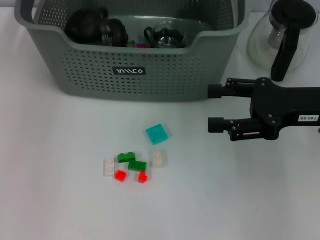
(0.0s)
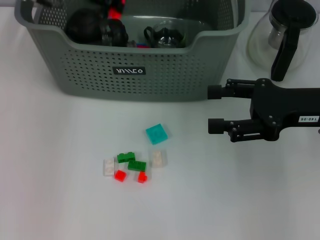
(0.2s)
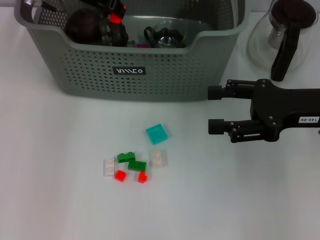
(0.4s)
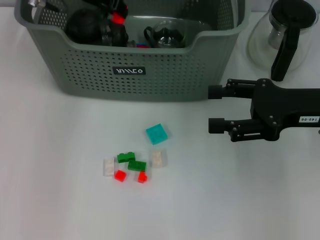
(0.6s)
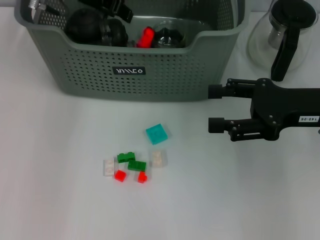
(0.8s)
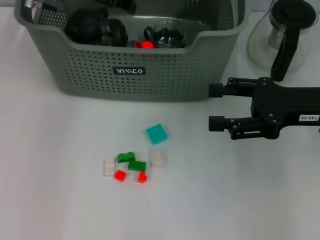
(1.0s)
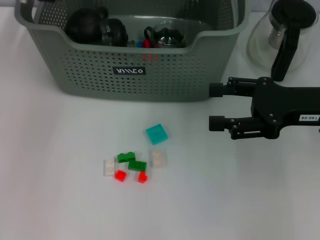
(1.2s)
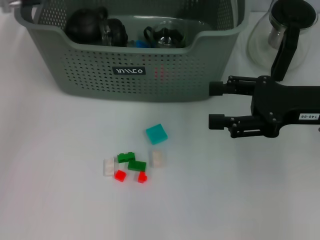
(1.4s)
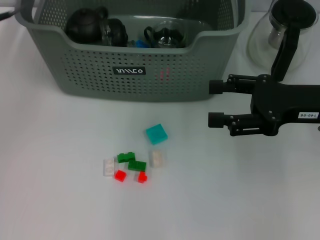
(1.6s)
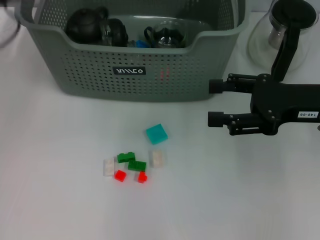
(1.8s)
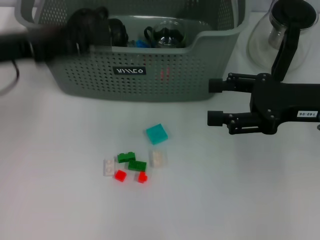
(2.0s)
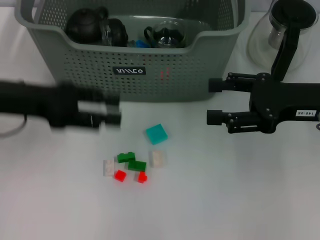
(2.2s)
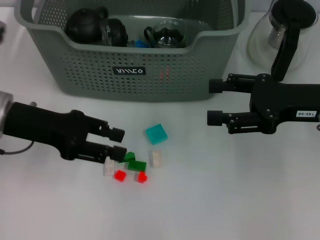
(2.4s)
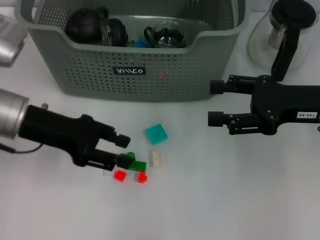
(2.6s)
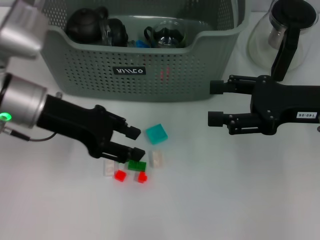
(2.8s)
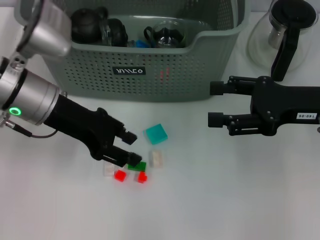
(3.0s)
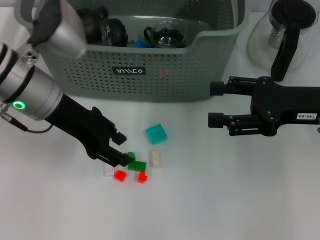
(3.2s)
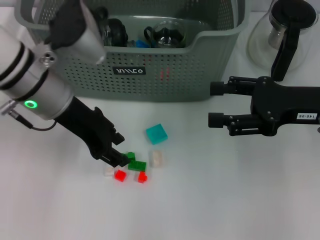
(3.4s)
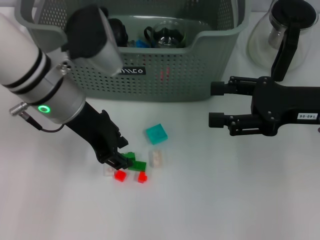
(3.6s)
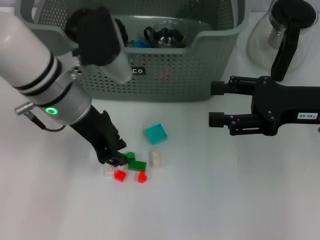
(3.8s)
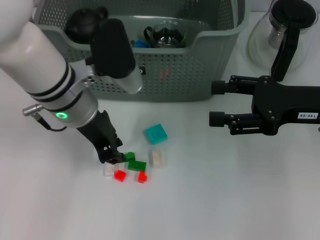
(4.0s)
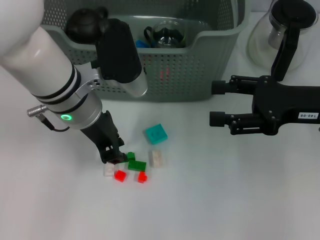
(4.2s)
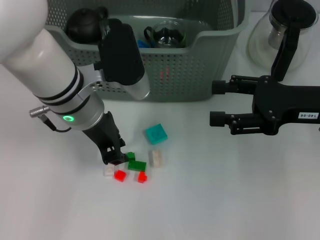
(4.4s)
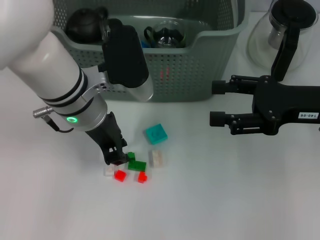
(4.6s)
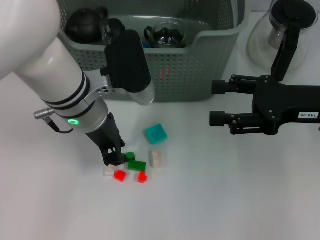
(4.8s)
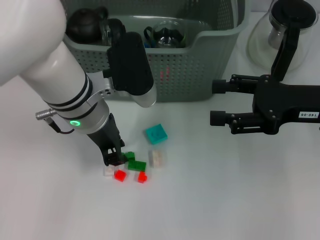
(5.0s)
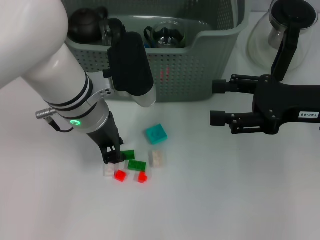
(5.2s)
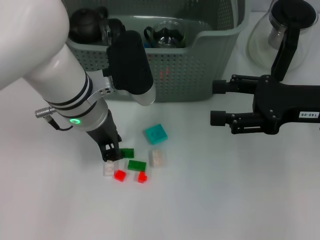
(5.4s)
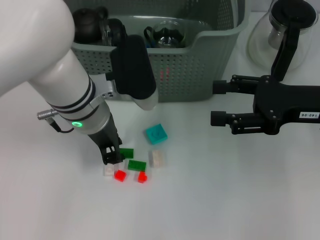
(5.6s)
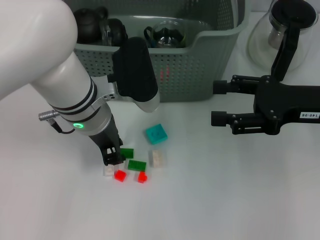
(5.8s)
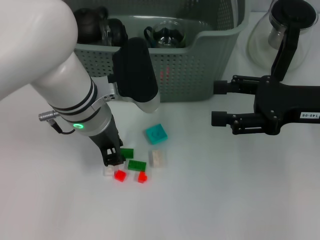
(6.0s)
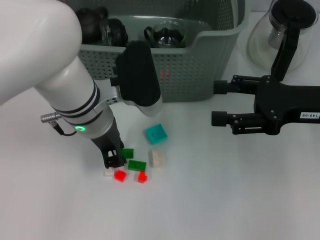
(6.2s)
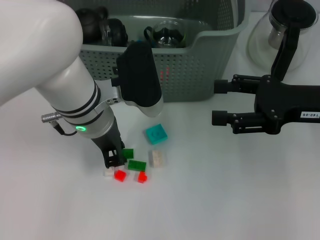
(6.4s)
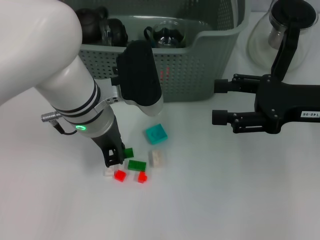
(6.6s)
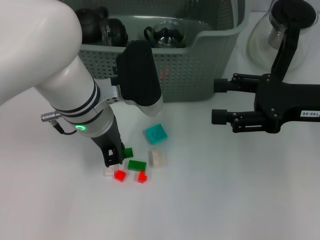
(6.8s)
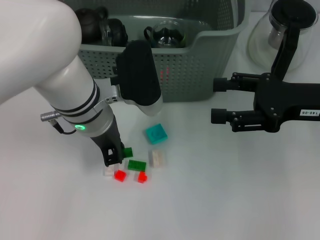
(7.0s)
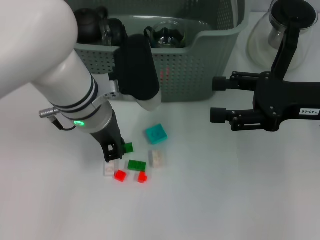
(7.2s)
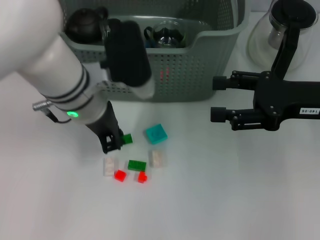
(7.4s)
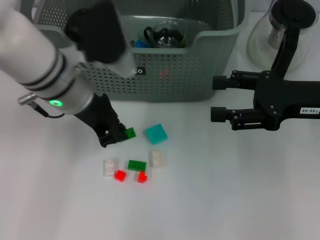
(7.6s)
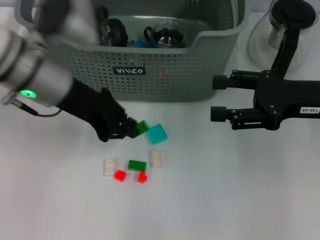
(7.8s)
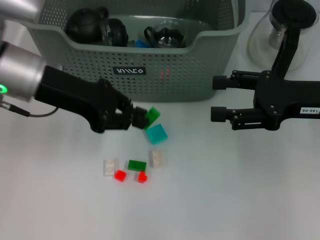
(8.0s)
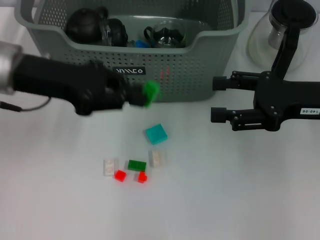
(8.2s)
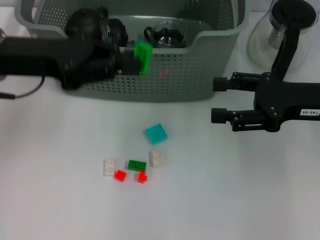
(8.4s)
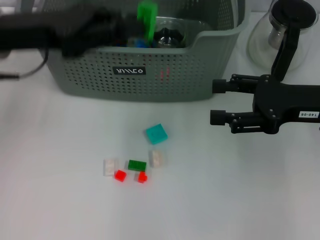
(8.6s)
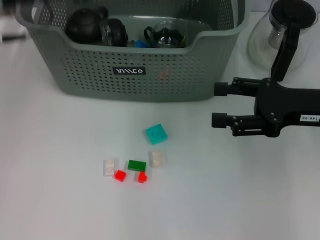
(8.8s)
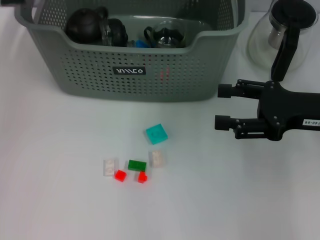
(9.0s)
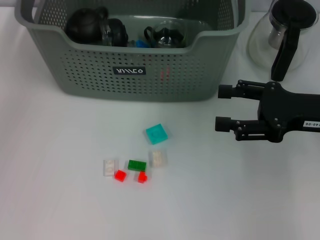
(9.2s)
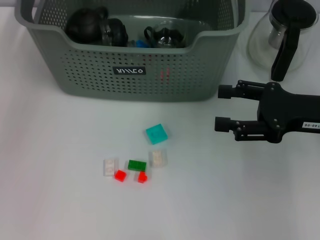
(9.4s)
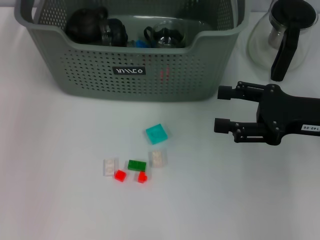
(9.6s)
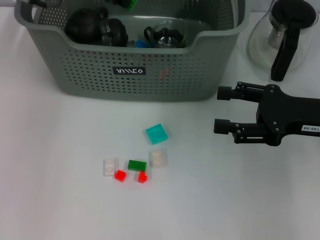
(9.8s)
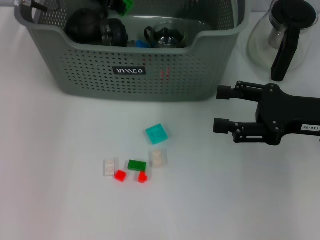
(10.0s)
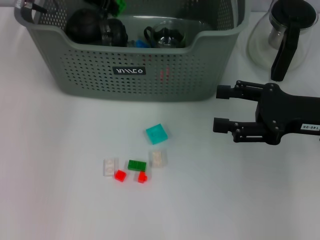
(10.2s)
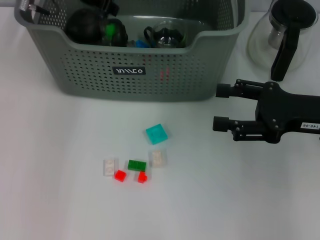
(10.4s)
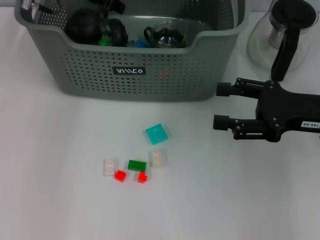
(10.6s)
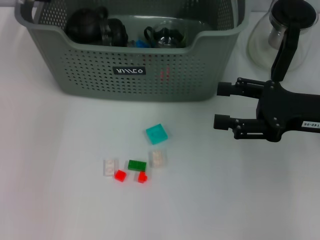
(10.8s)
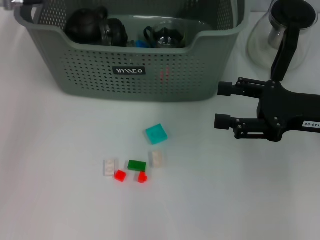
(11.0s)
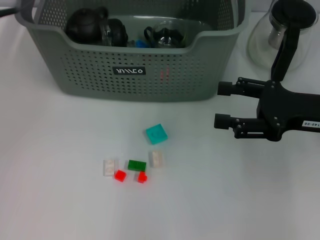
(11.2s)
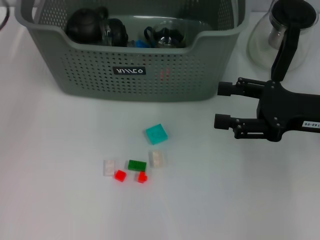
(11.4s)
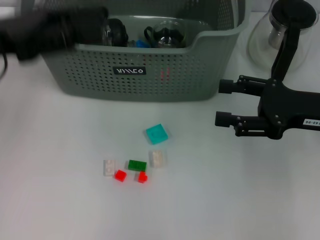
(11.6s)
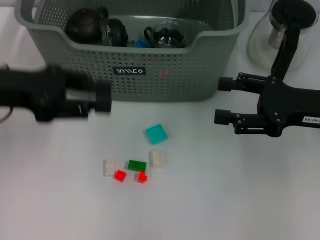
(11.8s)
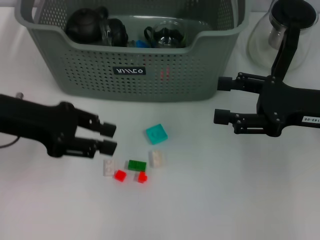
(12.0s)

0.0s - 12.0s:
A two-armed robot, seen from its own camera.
Task of the whole recording: pick up the teacup on the table and place it into the storage bin, pick up the block on the table and place it into the storage bin.
Step, 1.4s - 6.8s: Grasp the green block with left gripper.
Step, 7.2s - 10.6s: Place the green block in the storage box with left gripper.
1.6s - 3.0s: The left gripper travels downward, to the right and backward by roughly 10 cm.
3.0s - 4.4s: The left gripper travels to the right by some 10 cm.
4.4s - 6.0s: The grippers stay close to where they were, moving slightly.
7.6s - 9.0s: The left gripper travels upward, to the left and forward by approximately 15 cm.
9.0s - 10.4s: The left gripper travels forward by about 5 cm.
10.4s - 12.0s: The left gripper travels backward and to the left by some 20 cm.

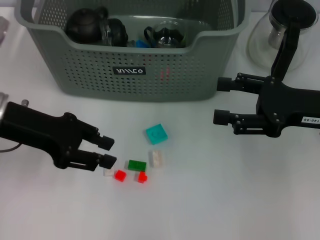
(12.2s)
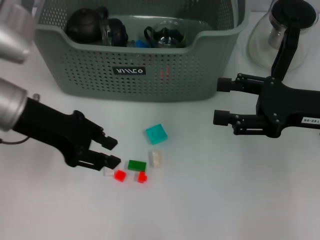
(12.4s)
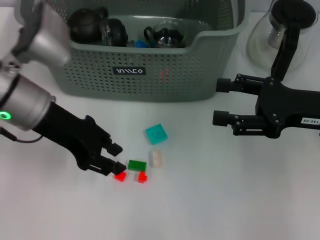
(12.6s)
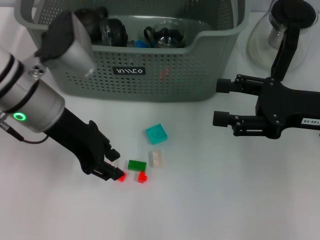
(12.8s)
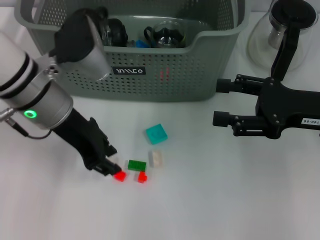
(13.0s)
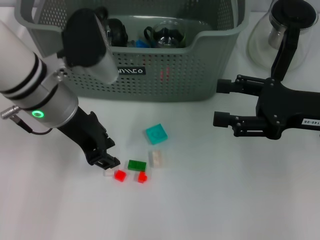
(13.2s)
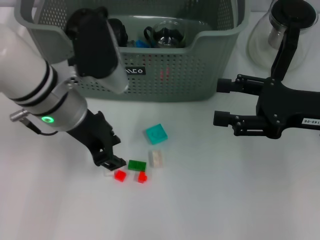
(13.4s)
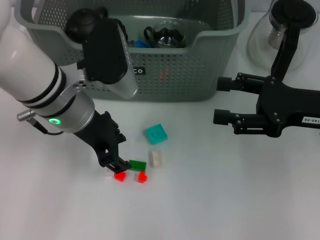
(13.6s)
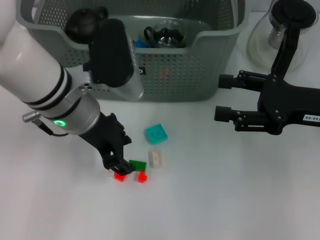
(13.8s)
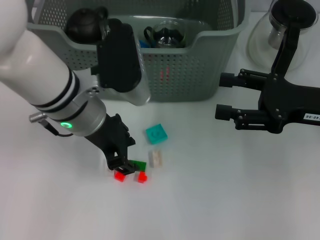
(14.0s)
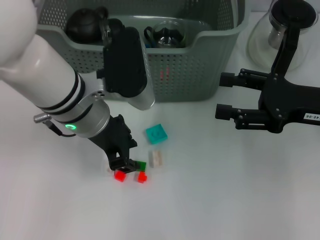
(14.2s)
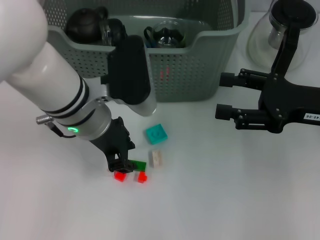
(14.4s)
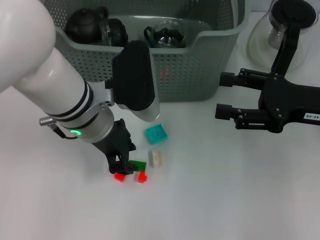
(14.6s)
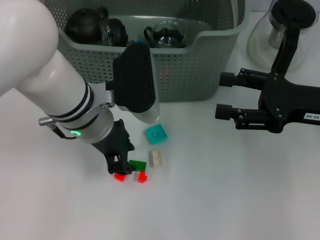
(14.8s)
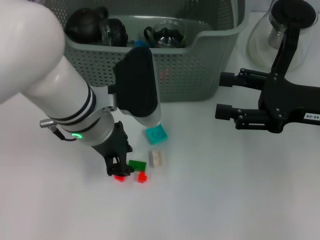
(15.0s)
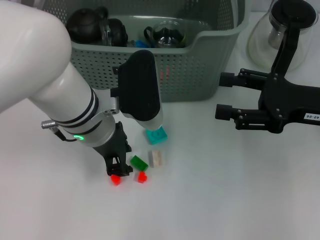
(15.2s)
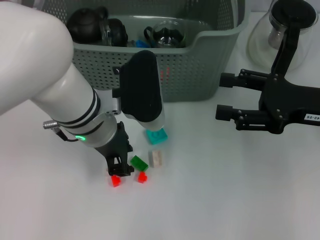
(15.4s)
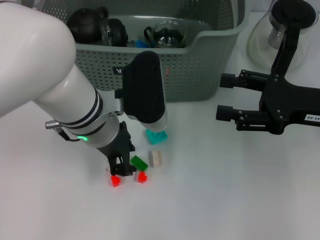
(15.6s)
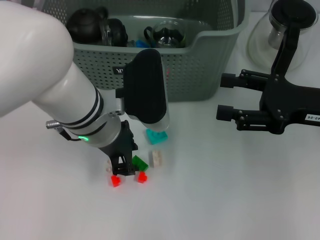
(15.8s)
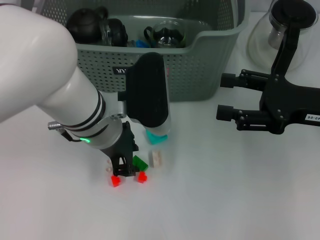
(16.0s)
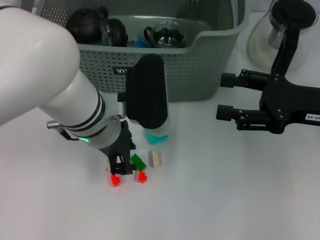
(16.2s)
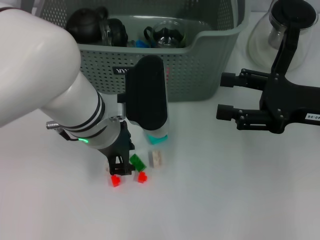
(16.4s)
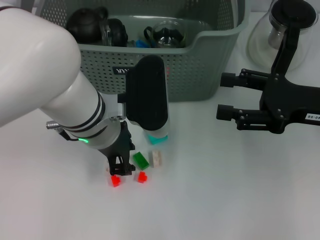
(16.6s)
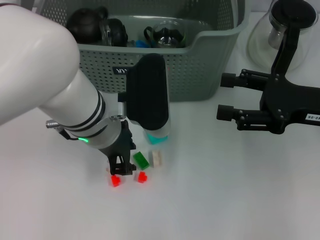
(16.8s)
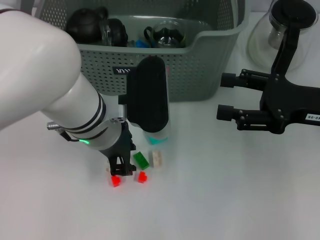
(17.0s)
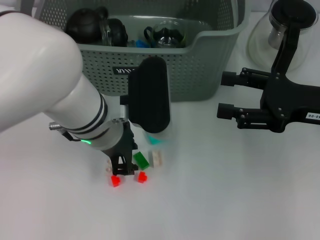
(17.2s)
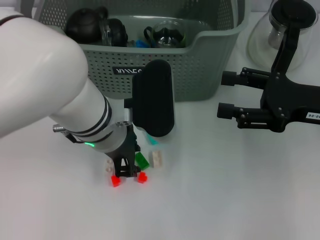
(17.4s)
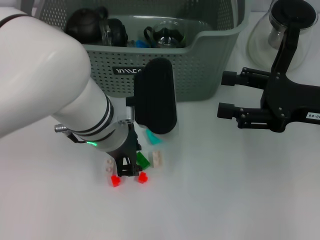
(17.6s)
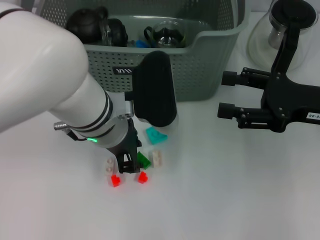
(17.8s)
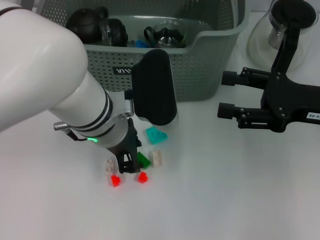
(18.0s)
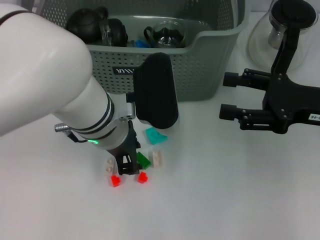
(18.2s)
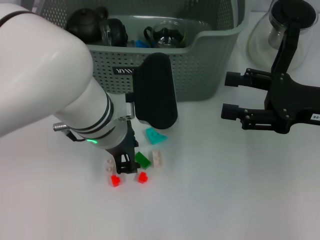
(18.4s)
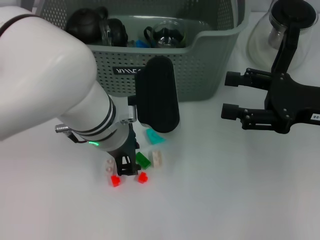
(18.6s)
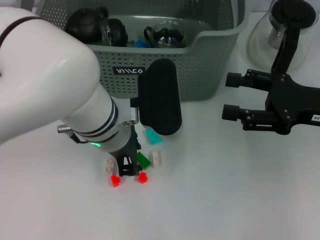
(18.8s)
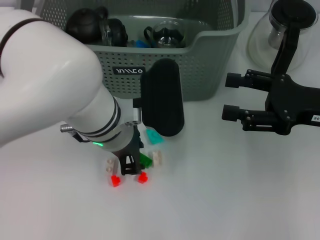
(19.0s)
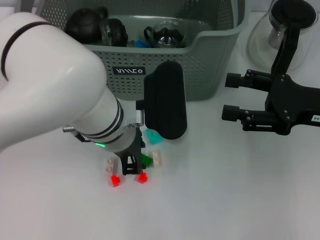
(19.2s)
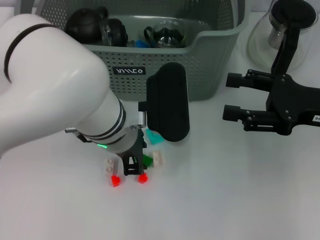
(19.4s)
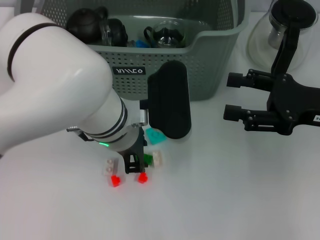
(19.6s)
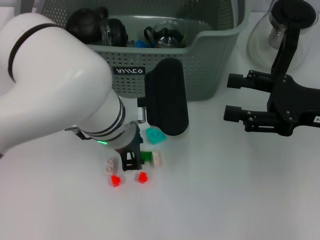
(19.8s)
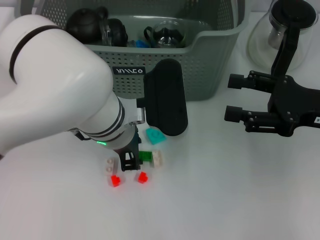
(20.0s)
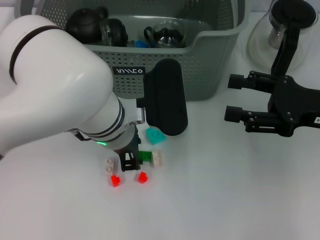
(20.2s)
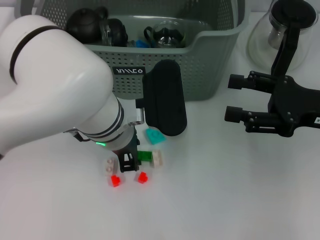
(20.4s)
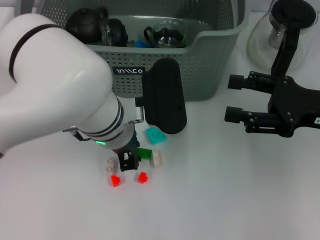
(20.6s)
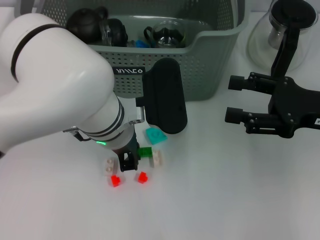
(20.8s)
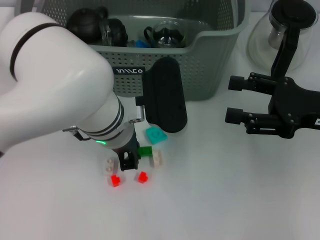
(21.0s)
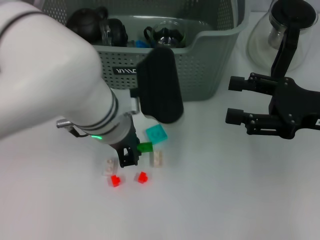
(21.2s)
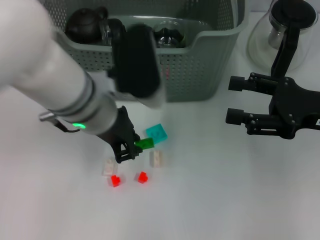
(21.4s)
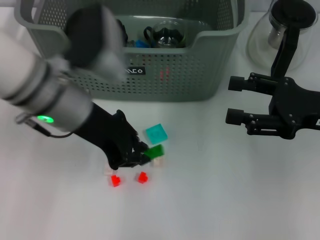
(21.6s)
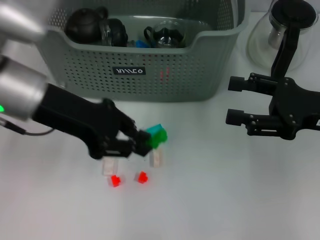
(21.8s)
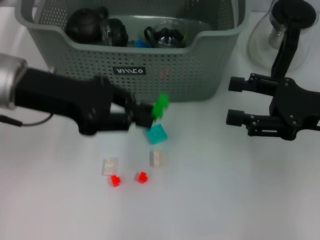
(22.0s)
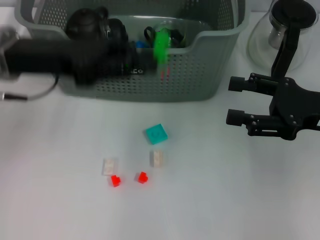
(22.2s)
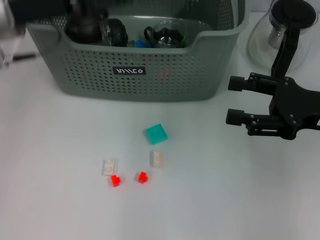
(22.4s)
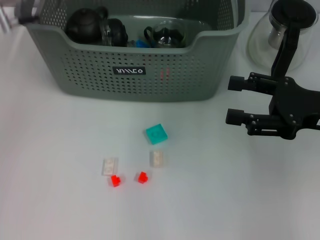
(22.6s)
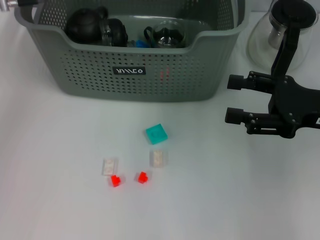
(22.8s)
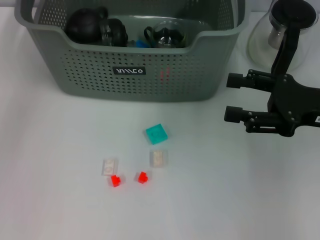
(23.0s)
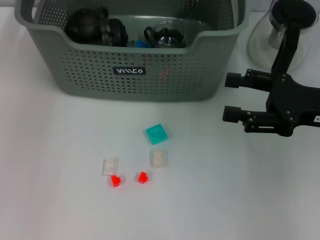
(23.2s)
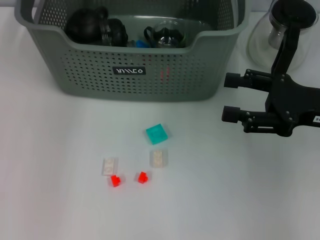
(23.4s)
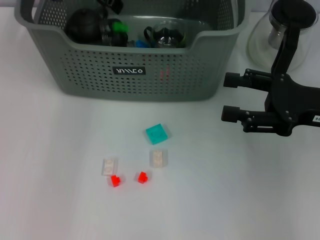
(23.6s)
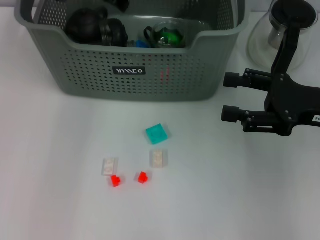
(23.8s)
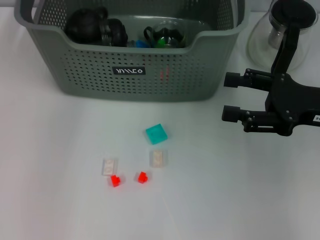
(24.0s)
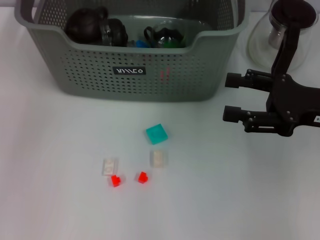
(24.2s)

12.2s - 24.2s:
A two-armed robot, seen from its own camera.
Task of the whole recording: pick up the teacup on the table and place it into the storage bin, pick up the block on the table and place it into the storage bin.
Step, 12.2s - 20.8s: Grasp the green block with left gripper.
Step, 21.0s - 23.8s: Place the green block in the storage box with left gripper.
12.2s - 13.8s: The left gripper shifts about 10 cm to the right.
13.8s - 15.2s: The grippers move only a little.
15.2s - 16.6s: Both grippers stay about where they are.
16.6s - 18.2s: The two grippers keep their place.
18.2s - 19.8s: The grippers stay close to where they were, moving slightly.
19.8s - 21.2s: Both grippers stay about where they are.
21.2s - 22.6s: The left gripper travels to the left, forward and upward by roughly 20 cm.
